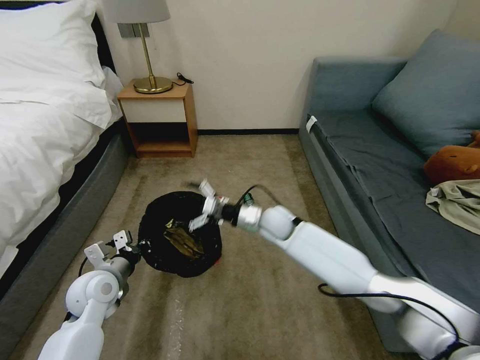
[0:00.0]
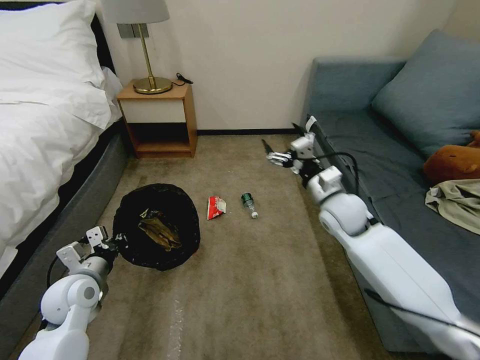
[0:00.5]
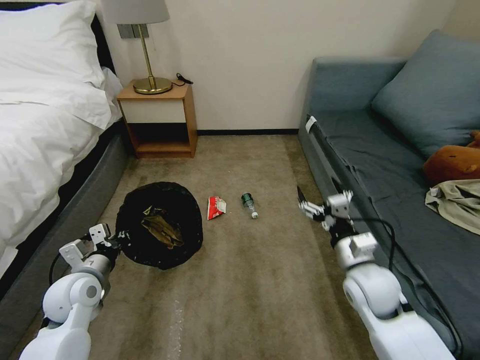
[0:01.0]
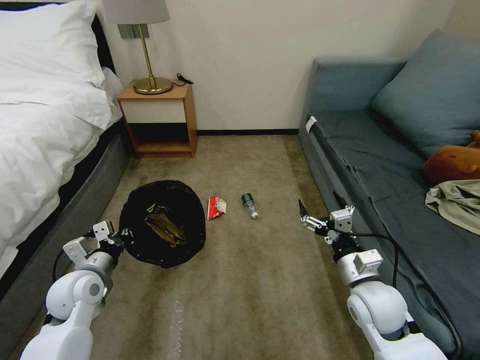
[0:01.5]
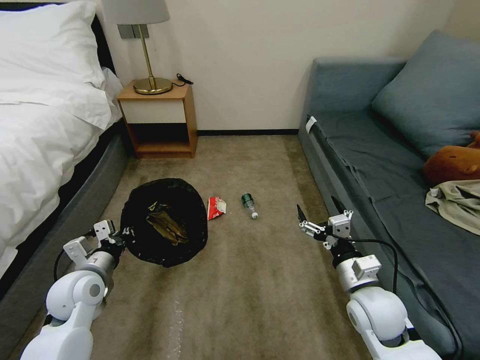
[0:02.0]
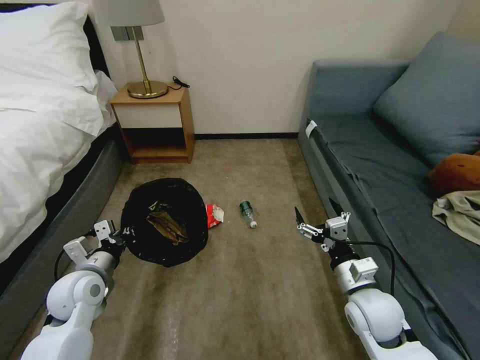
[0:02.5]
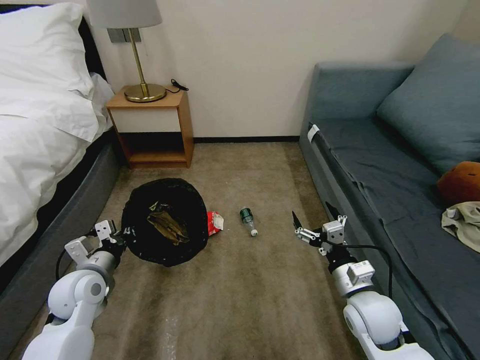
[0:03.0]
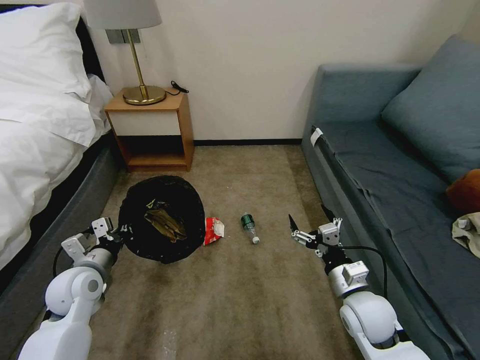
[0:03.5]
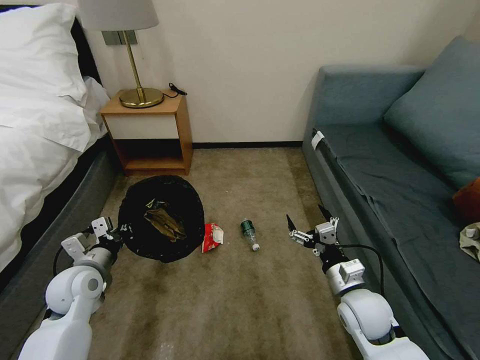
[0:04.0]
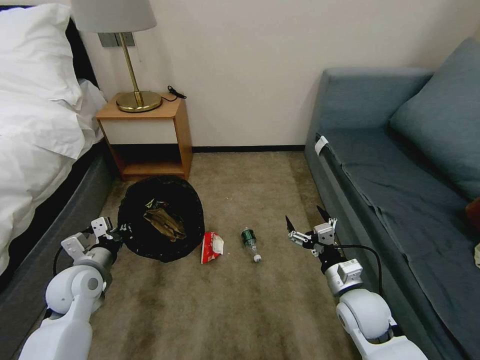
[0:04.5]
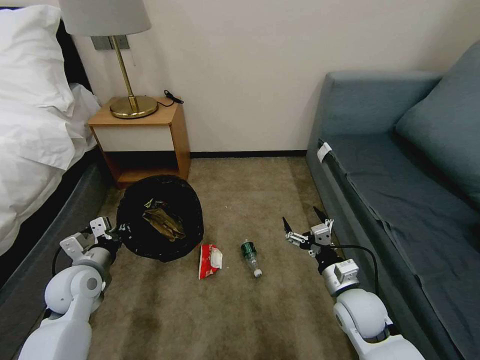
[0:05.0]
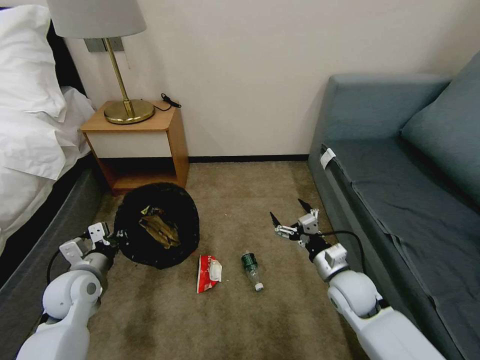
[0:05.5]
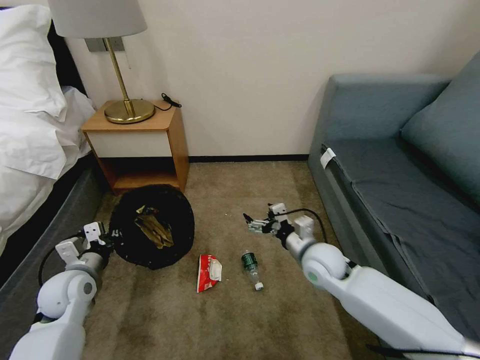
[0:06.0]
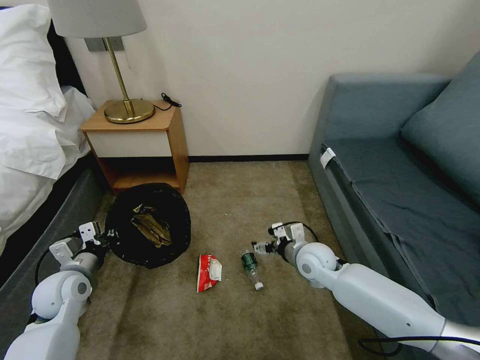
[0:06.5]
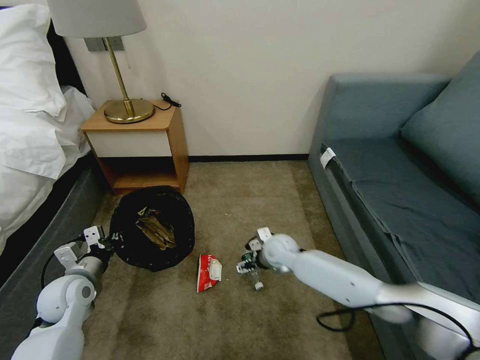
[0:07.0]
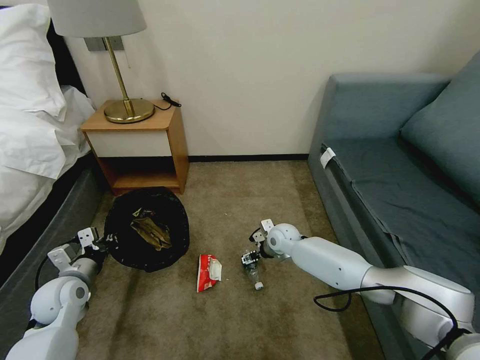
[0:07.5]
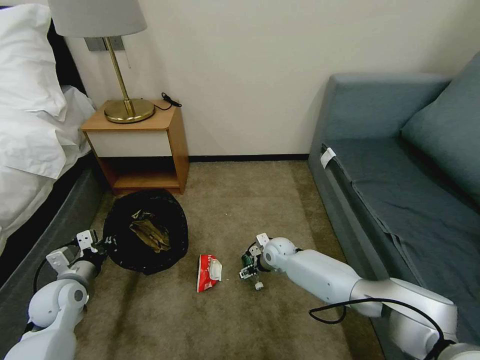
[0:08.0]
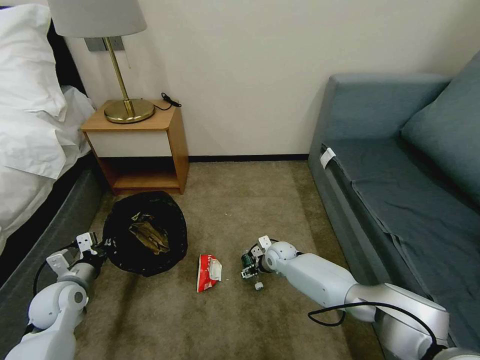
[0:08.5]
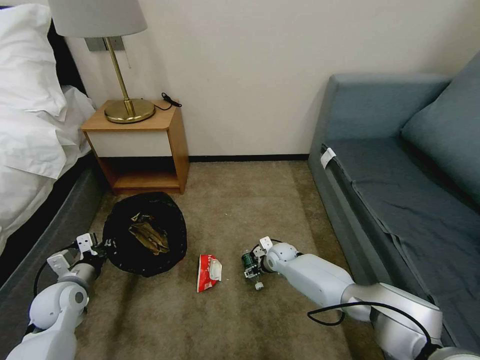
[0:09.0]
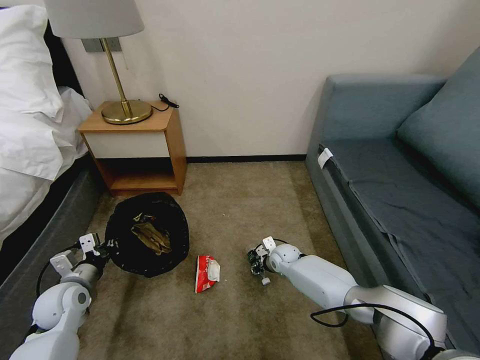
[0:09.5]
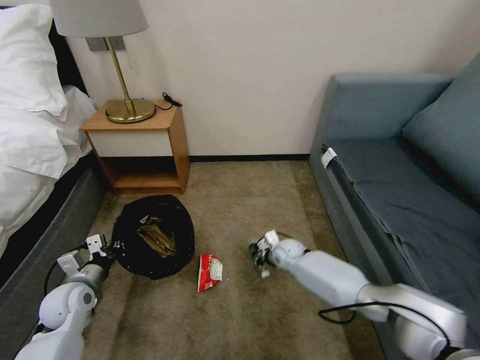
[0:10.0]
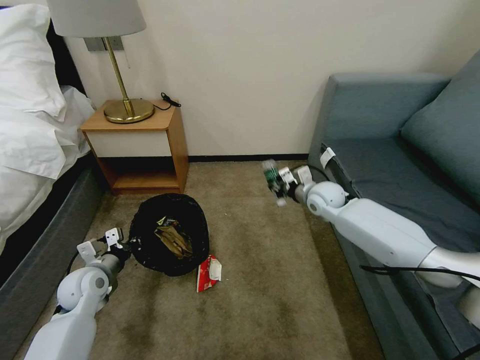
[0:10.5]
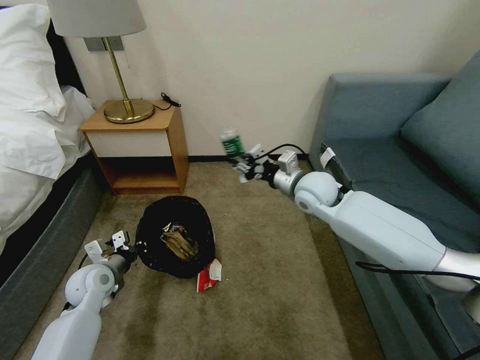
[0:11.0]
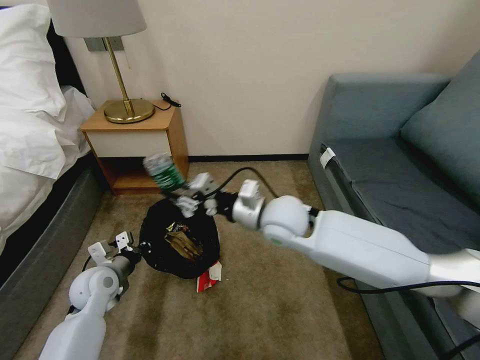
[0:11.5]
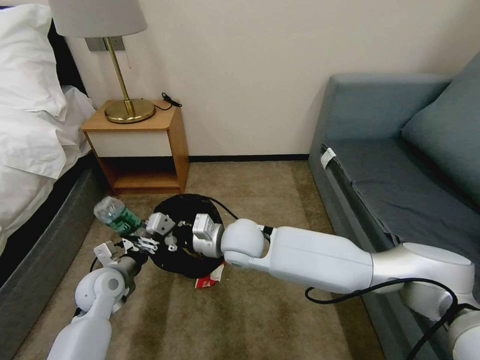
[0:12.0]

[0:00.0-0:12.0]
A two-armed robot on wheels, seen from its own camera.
Task of the whole recording: Pick up the trash bin, then pick up the garbage on the floor and place it into the trash bin.
0:00.0 to 0:02.0: The right gripper goes some 30 cm backward and to the right.
0:04.0 to 0:06.0: The right gripper travels forward and to the left by some 10 cm.
0:06.0 to 0:08.0: The right gripper moves downward, forward and to the left, about 20 cm.
0:08.0 to 0:10.0: The right gripper closes its fingers.
0:10.0 to 0:12.0: The right gripper goes some 30 cm upward, to the left and backward, while the left gripper shifts about 5 cm to the right.

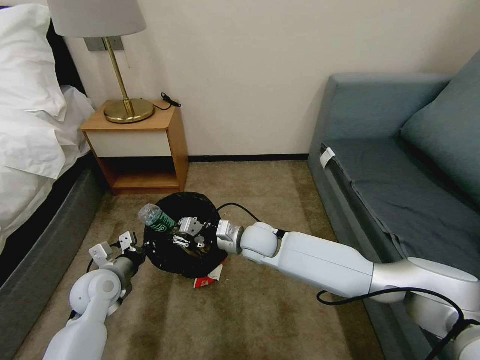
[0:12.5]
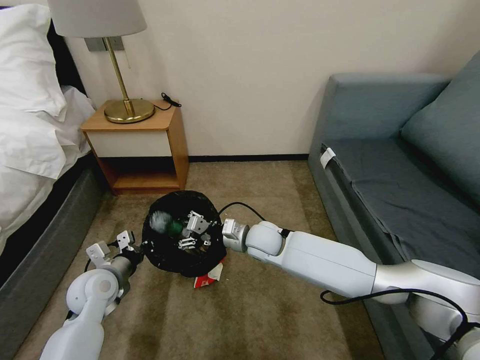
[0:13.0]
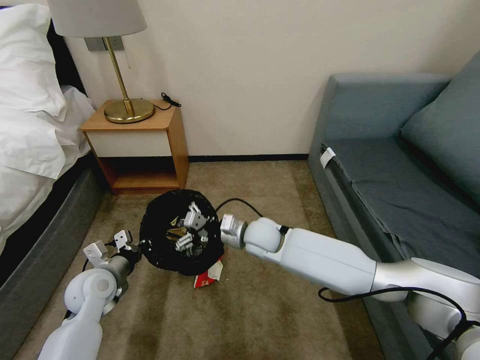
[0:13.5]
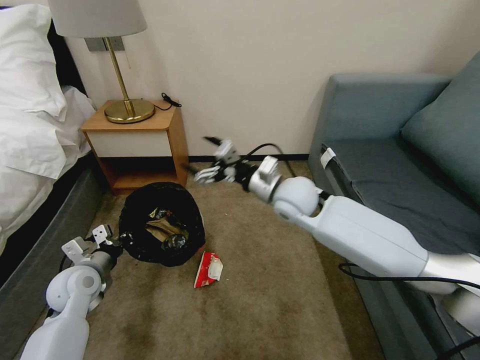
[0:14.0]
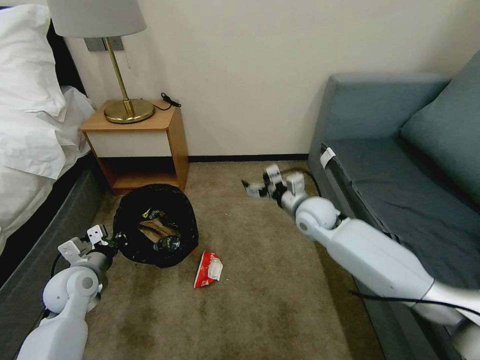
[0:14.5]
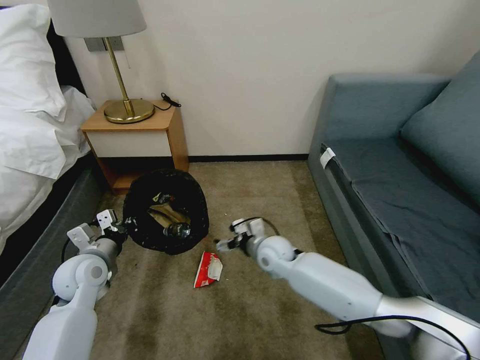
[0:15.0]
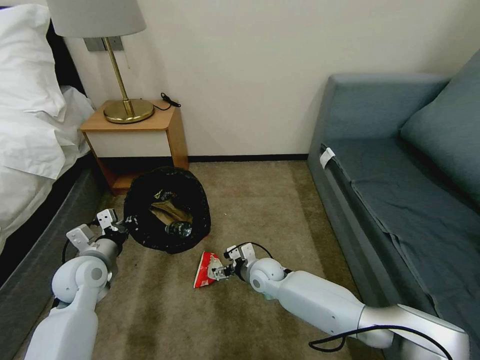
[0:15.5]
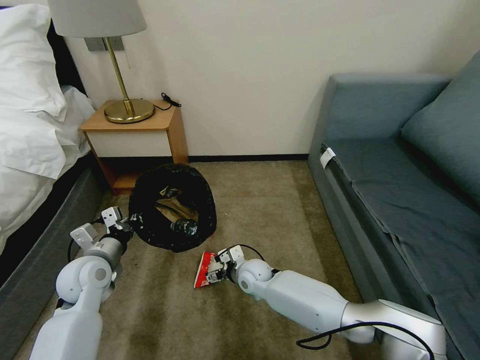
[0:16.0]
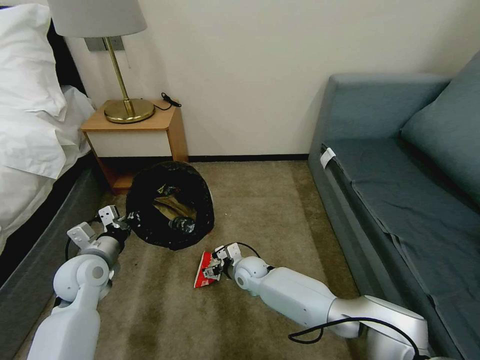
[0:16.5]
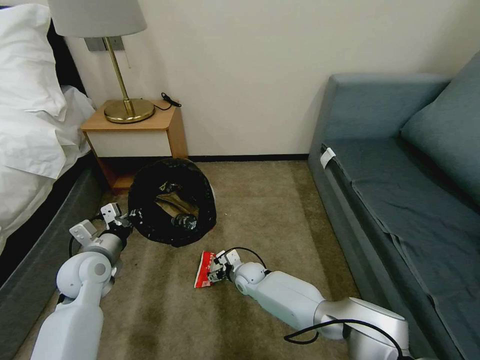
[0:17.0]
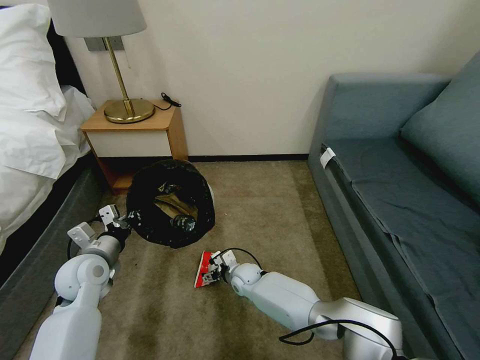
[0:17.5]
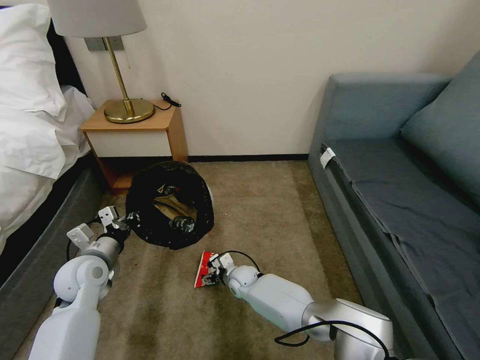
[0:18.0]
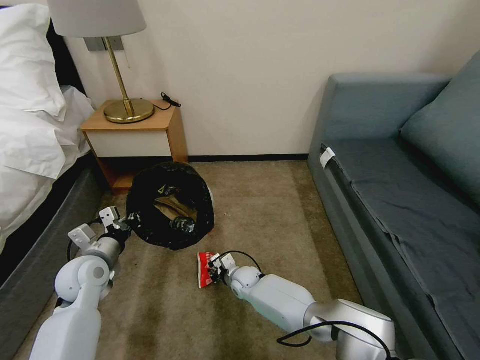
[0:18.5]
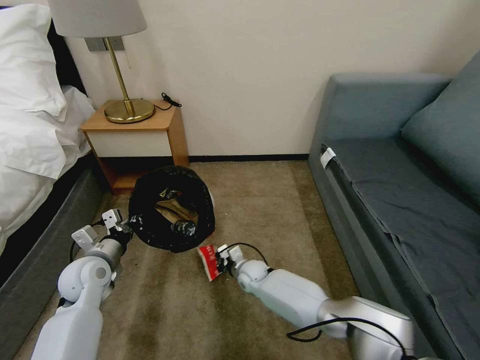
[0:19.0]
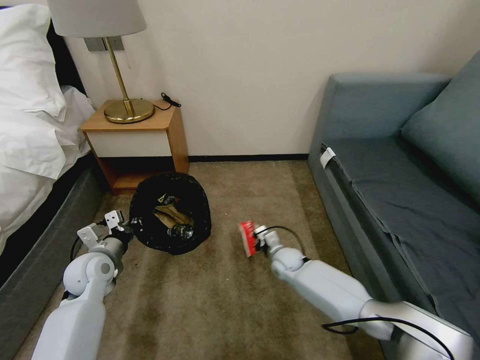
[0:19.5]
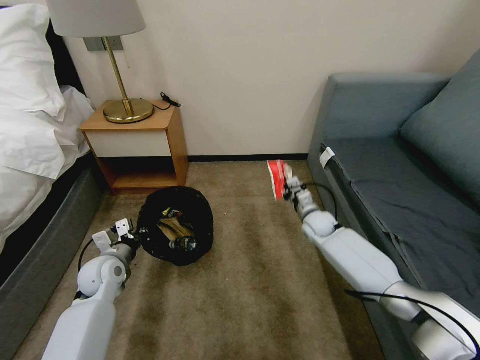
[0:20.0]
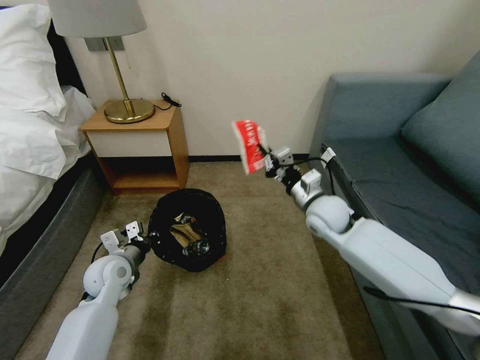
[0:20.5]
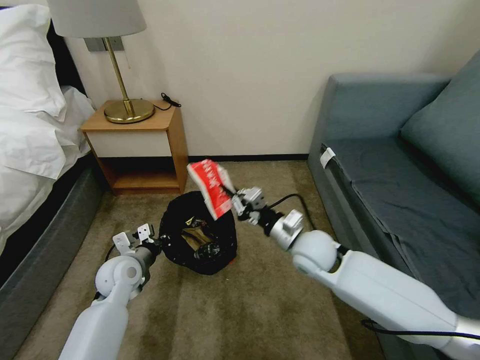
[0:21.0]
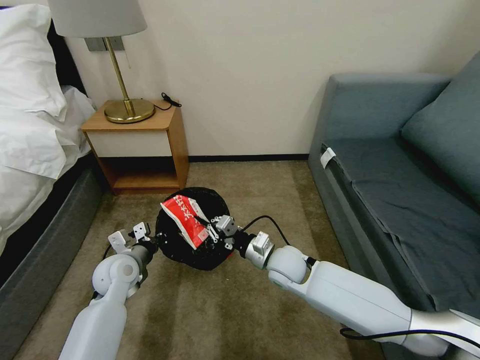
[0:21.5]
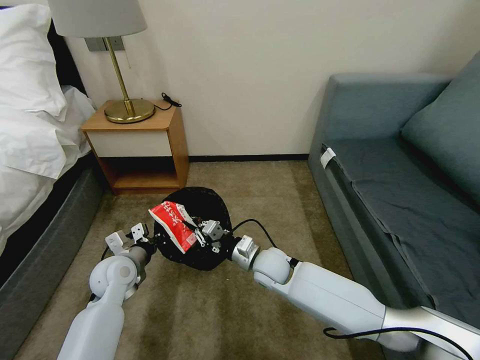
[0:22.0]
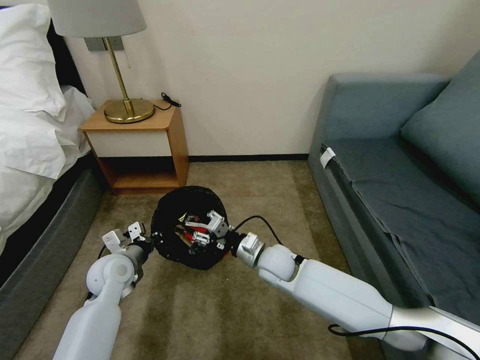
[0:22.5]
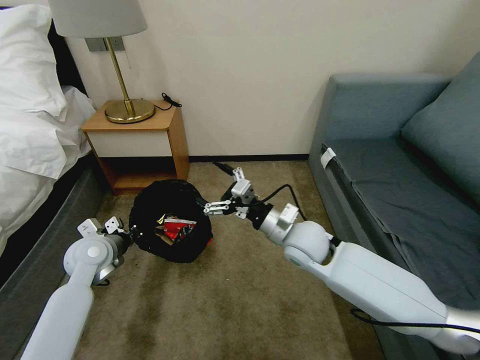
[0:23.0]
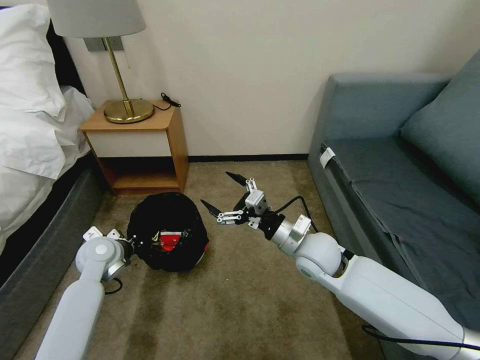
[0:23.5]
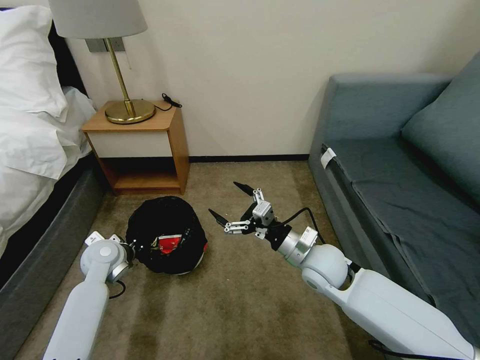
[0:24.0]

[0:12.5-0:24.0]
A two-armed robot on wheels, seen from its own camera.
Task of the whole recording: Pick up the trash bin, then pick up the garbage on the floor and place it into the trash bin.
0:12.5 to 0:14.5: The right gripper travels to the right by roughly 15 cm, and opens its fingers.
0:14.5 to 0:16.5: The right gripper travels downward and to the left by some 25 cm.
0:16.5 to 0:18.5: The right gripper heads downward, covering some 5 cm, and closes up.
0:18.5 to 0:20.0: The left gripper shifts by approximately 5 cm. The right gripper travels to the right, upward and forward by some 30 cm.
0:20.0 to 0:22.0: The right gripper travels to the left and backward by some 20 cm.
0:22.0 to 0:24.0: The right gripper moves to the right and upward, approximately 15 cm, and opens its fingers. The left gripper shifts by about 5 cm.

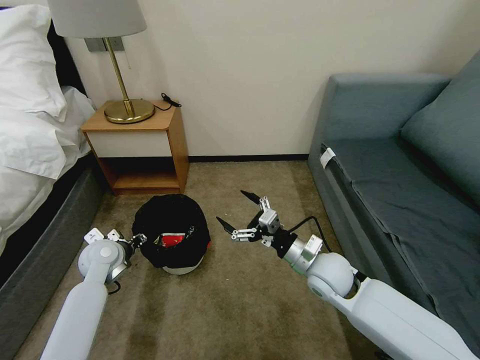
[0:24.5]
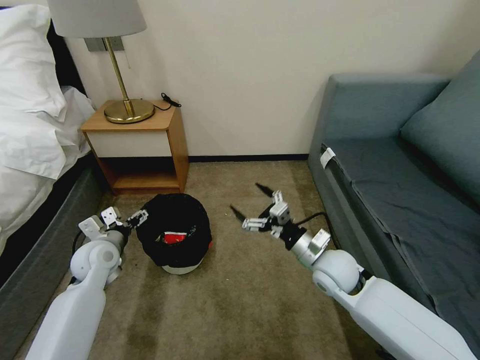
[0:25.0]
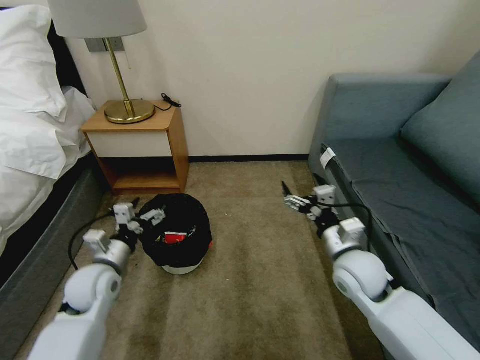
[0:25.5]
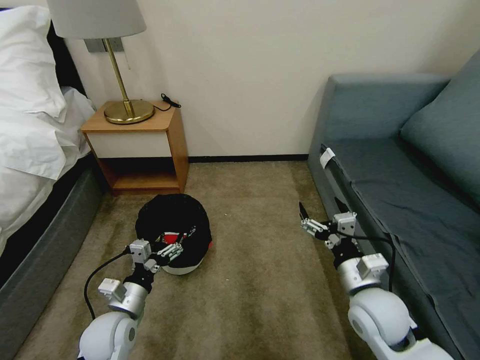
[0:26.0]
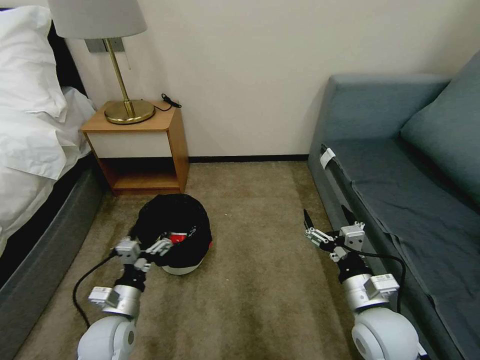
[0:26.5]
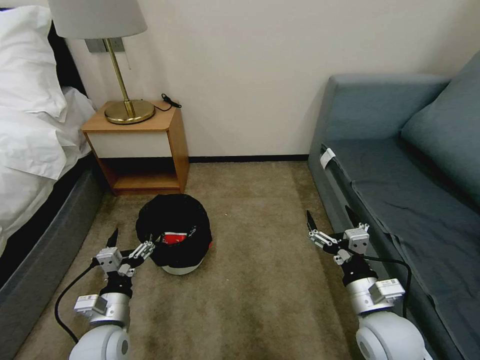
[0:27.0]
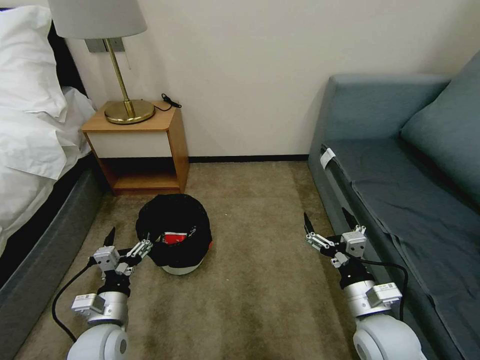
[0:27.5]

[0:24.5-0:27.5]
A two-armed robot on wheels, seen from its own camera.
Task of the whole recording: Pick up the trash bin, then pick up the garbage on the floor and place it into the trash bin.
0:24.5 to 0:26.0: The right gripper goes roughly 10 cm backward and to the right. The left gripper shifts approximately 15 cm backward and to the right, and opens.
0:26.0 to 0:27.5: The grippers stay close to where they were, moving slightly.
